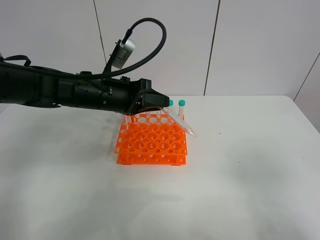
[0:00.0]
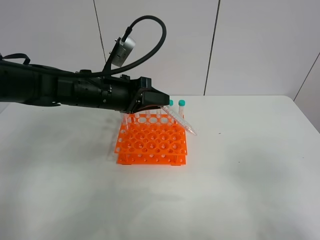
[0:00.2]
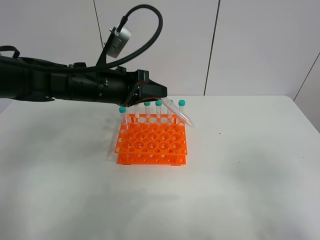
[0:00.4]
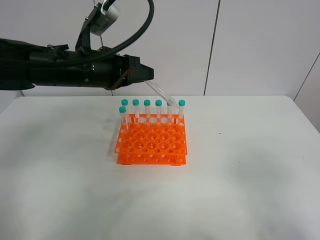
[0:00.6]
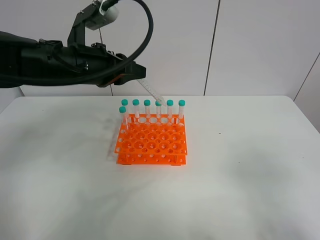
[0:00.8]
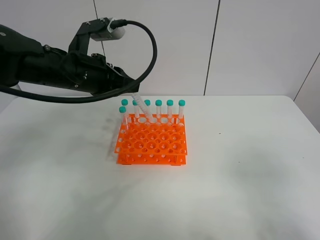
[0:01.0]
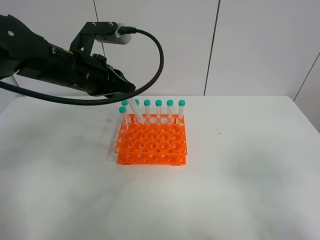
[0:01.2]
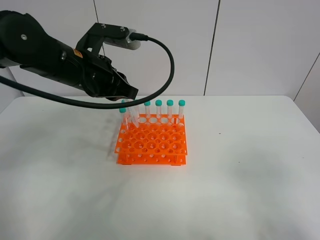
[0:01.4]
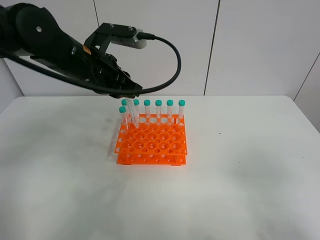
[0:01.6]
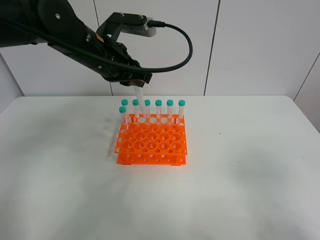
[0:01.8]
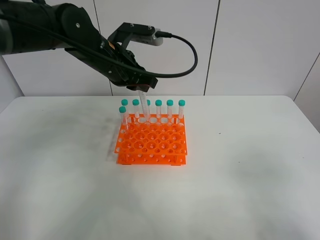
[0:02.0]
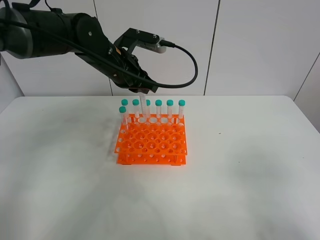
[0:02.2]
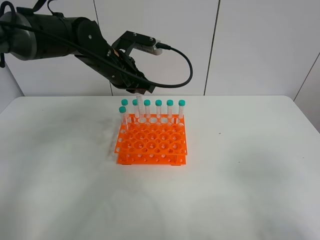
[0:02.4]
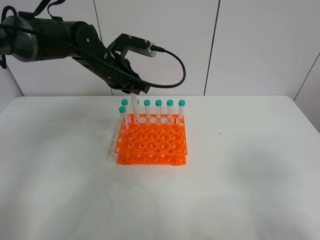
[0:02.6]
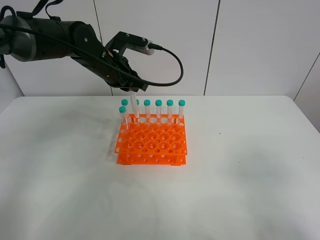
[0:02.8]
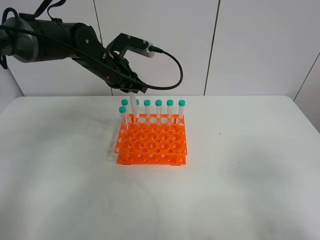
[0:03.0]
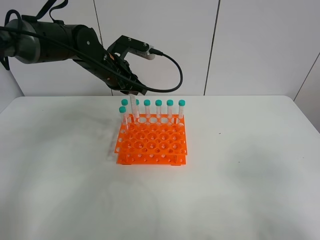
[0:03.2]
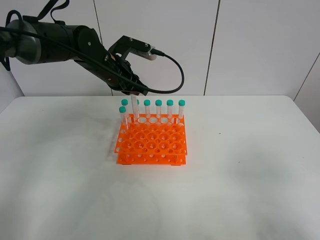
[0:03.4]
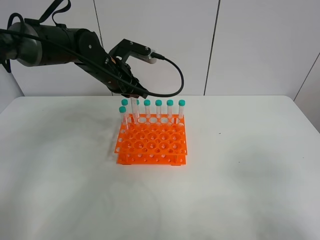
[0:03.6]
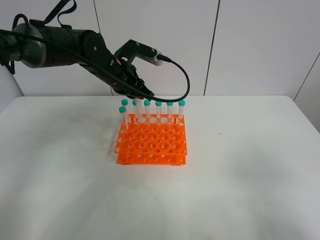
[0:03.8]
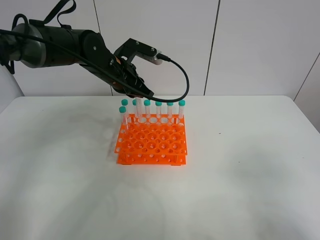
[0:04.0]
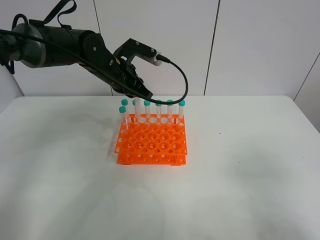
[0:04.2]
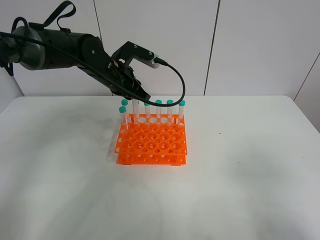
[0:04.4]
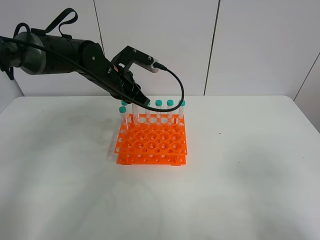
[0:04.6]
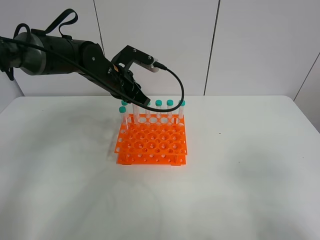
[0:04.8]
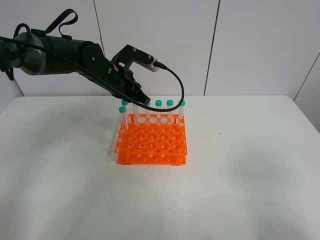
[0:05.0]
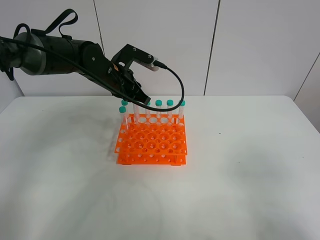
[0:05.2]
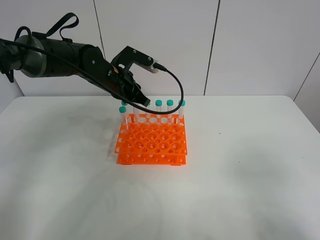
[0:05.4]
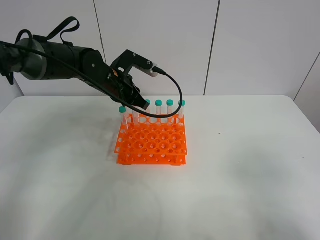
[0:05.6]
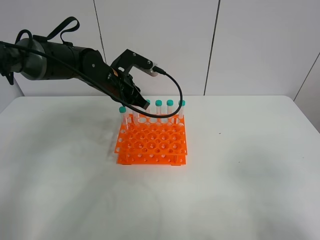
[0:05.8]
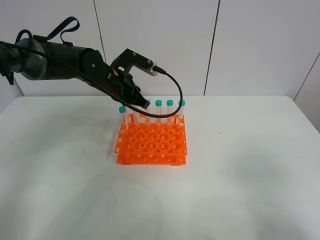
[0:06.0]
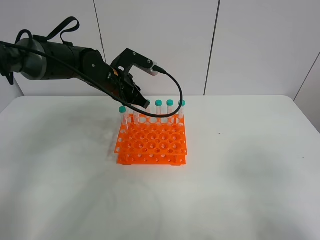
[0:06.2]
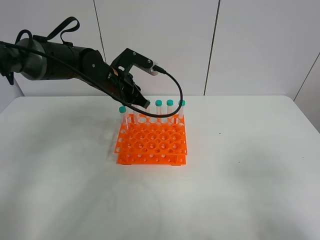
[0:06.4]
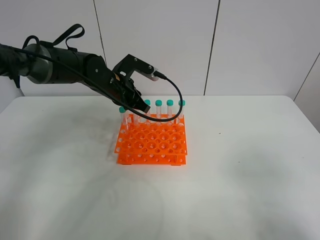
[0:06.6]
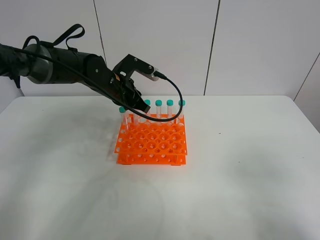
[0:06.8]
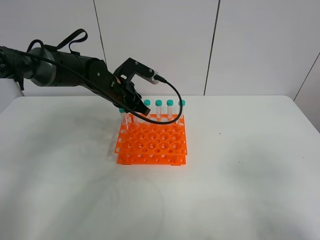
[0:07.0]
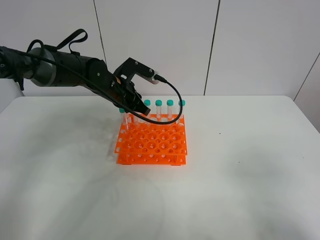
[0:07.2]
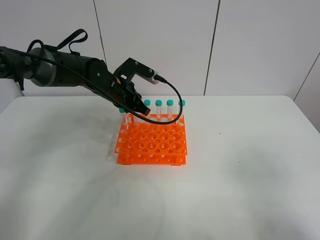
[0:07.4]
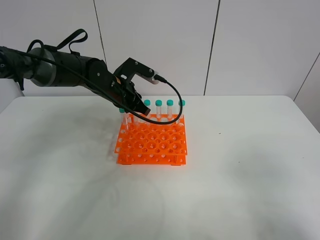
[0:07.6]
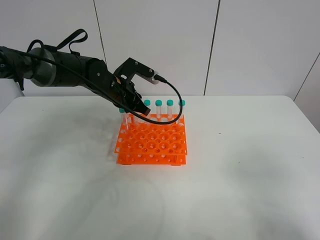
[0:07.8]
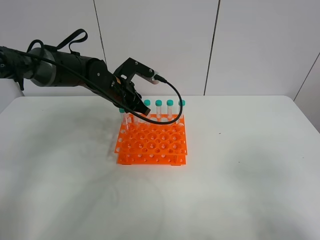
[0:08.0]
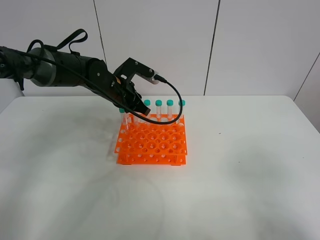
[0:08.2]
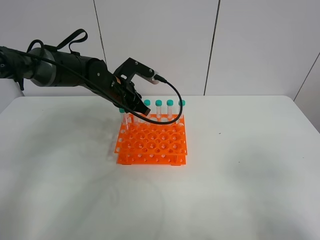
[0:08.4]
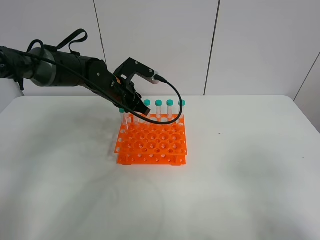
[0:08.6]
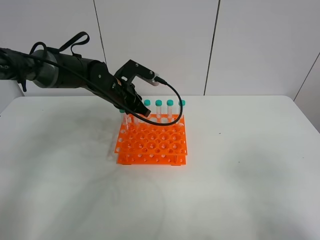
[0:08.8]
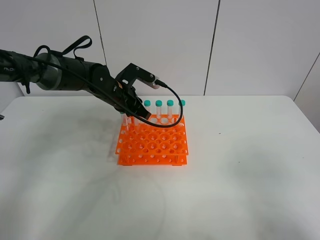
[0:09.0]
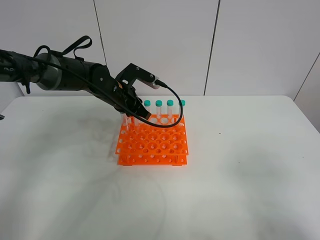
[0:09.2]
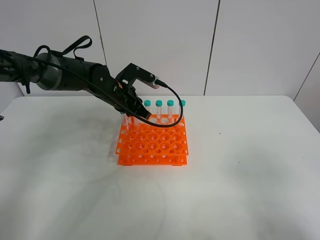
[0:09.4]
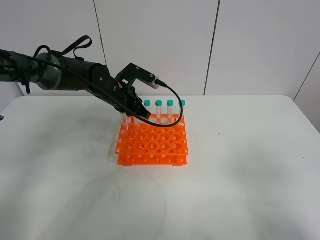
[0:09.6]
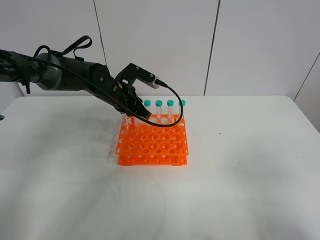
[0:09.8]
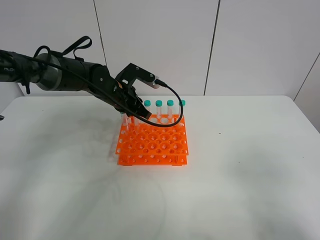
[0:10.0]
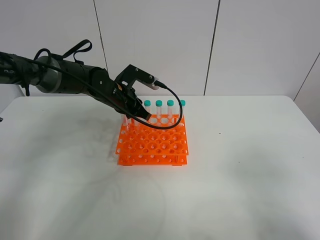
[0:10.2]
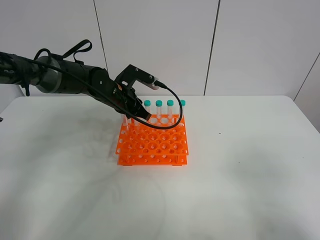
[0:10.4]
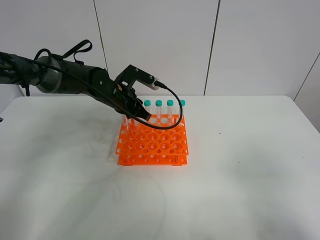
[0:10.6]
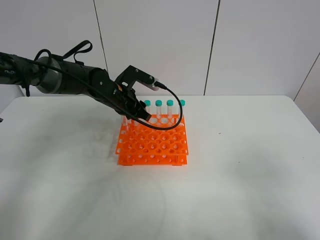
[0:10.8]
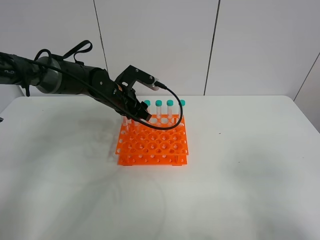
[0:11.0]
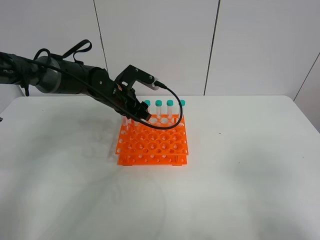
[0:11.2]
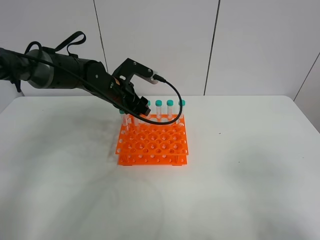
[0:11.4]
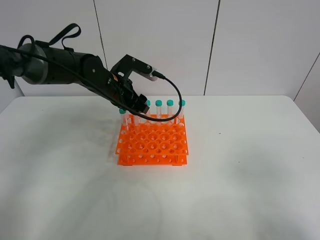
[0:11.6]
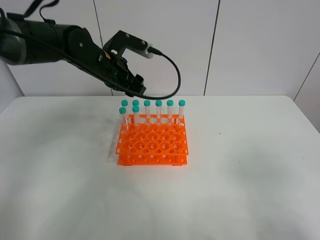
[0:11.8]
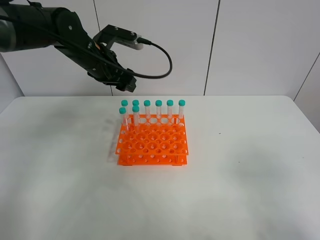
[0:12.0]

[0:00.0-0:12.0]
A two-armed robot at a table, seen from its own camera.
Task of the whole recording: Put the test tube on the table back onto the test tube rack.
0:00.0 to 0:01.6: The left gripper travels upward by roughly 5 cm.
0:01.6 to 0:03.0: The left gripper heads forward, covering approximately 10 cm.
0:03.0 to 0:07.6: The grippers make only small movements.
0:07.6 to 0:09.0: Both grippers stay about where they are.
0:09.0 to 0:10.4: Neither gripper changes place.
0:10.4 to 0:12.0: The left gripper goes approximately 10 cm upward, and opens.

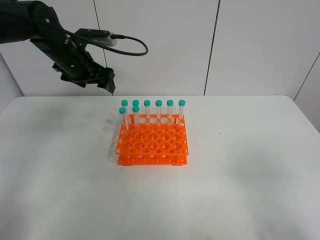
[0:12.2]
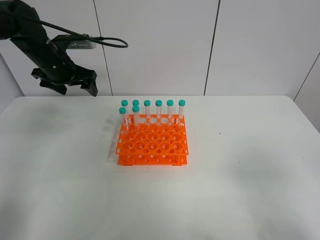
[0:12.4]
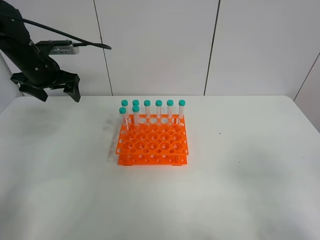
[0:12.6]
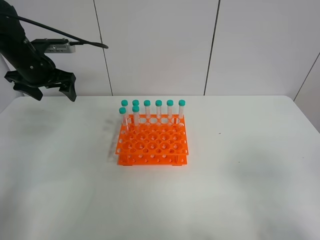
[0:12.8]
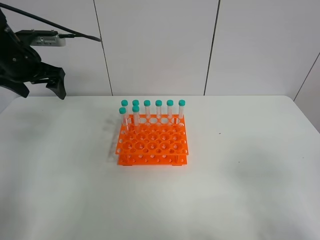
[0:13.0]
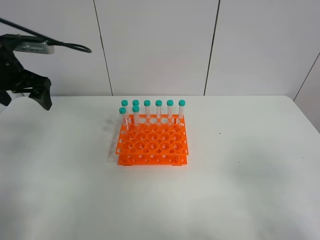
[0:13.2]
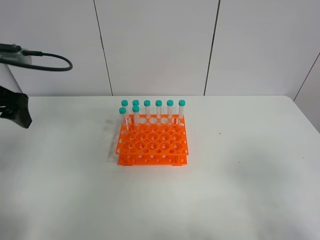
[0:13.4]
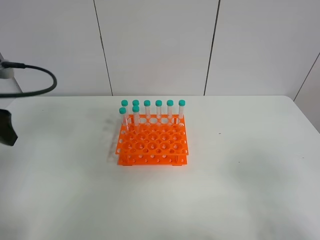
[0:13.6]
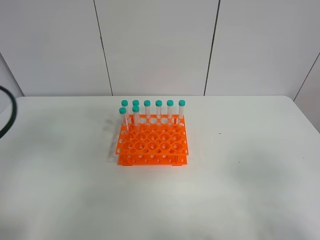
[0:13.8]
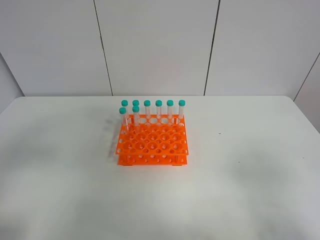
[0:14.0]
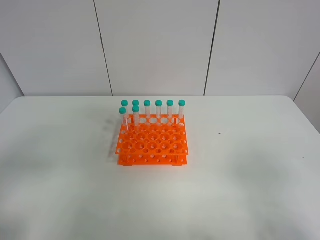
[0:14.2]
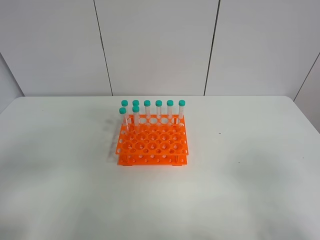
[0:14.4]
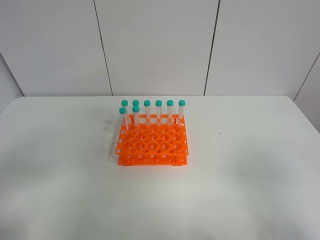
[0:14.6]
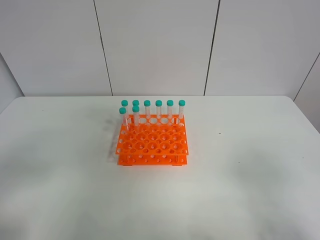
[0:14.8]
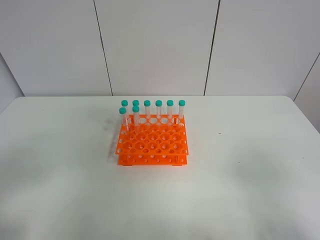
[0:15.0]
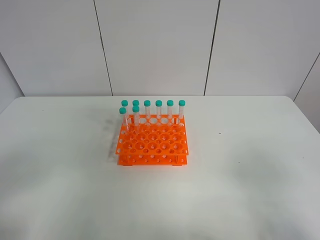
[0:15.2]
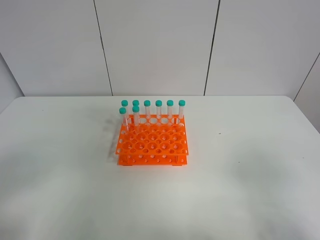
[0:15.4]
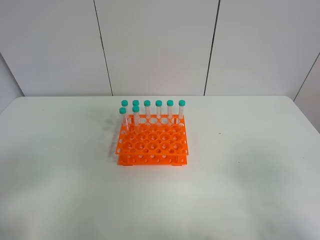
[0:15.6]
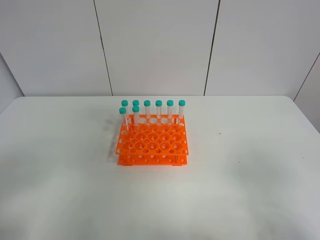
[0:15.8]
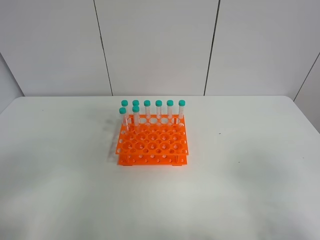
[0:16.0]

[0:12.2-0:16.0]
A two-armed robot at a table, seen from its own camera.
Task of the whole recording: Put the test tube on the table back onto the test tube rack.
0:12.2 to 0:13.4: The left gripper is displaced backward and to the left by about 20 cm.
0:13.4 to 0:14.8: The left gripper heads backward, covering roughly 25 cm.
